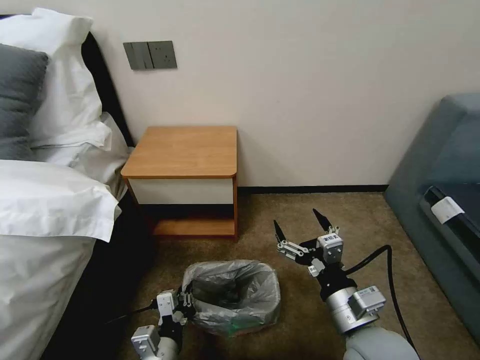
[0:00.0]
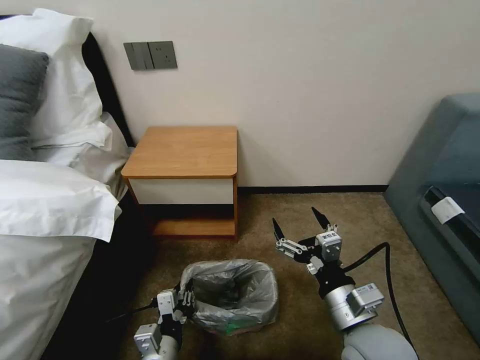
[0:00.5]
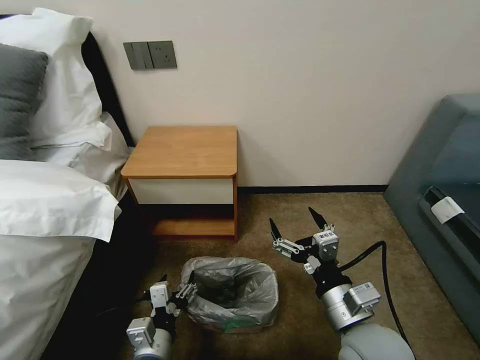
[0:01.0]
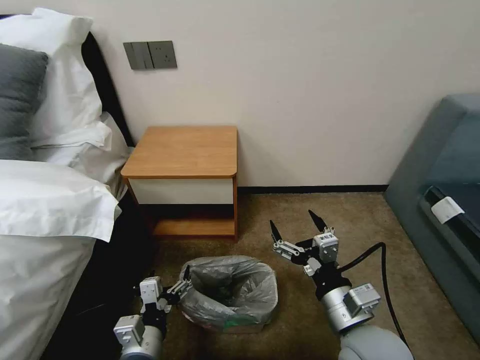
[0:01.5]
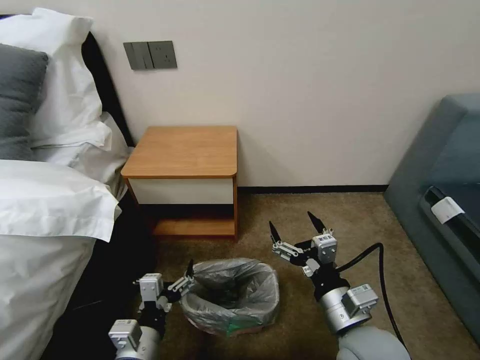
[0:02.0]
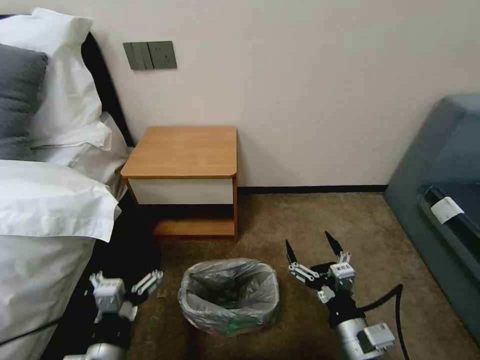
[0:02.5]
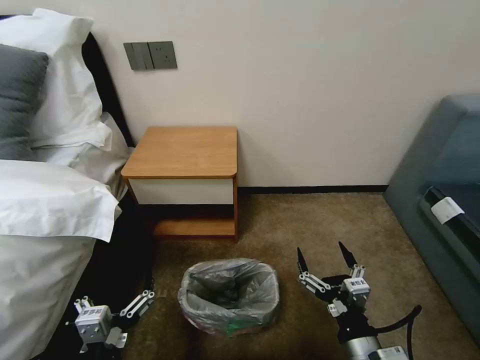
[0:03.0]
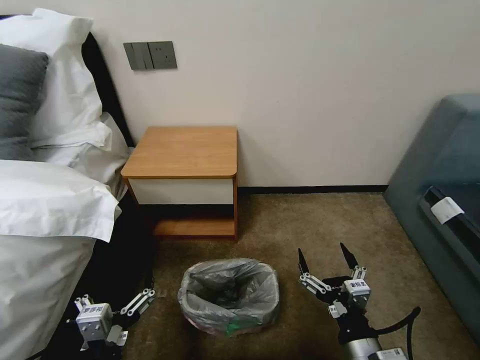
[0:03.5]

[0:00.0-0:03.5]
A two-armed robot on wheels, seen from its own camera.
Task of the whole recording: Pick up the garbage bag from the table and place it over the trash can.
0:00.0 to 0:02.0: The left gripper goes approximately 5 cm upward, and opens up.
0:02.0 to 0:03.5: The left gripper goes some 10 cm backward. Meanwhile the right gripper goes roughly 10 cm backward and downward.
